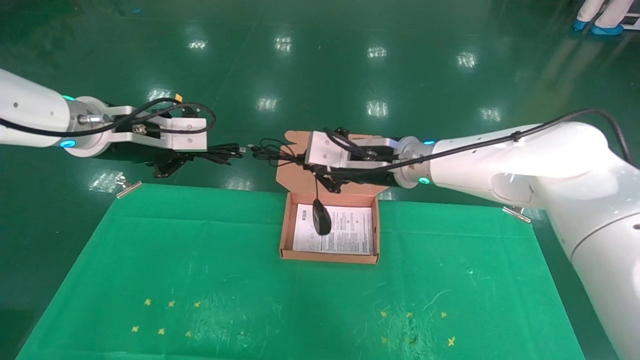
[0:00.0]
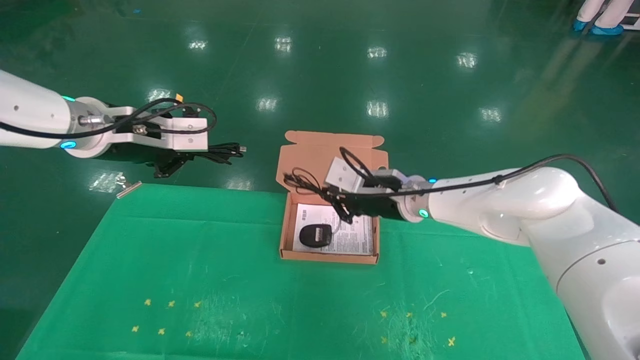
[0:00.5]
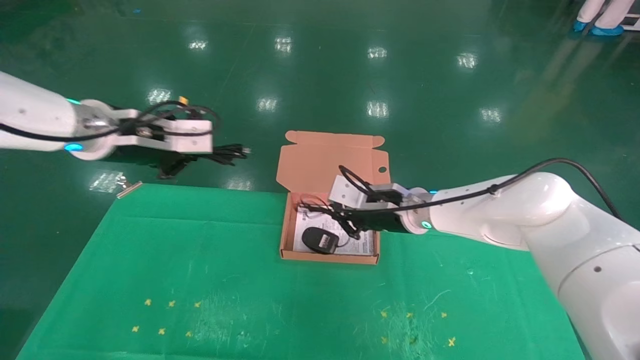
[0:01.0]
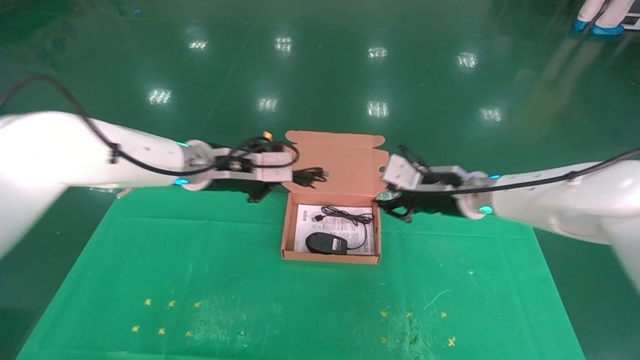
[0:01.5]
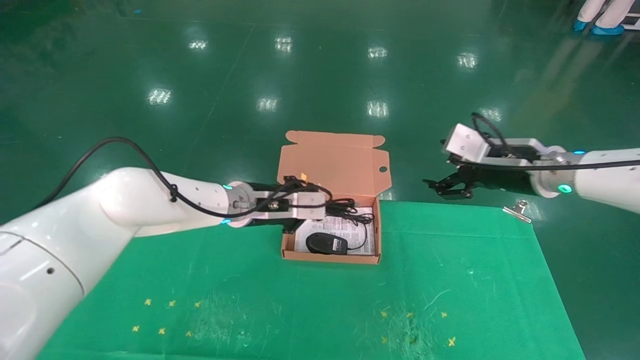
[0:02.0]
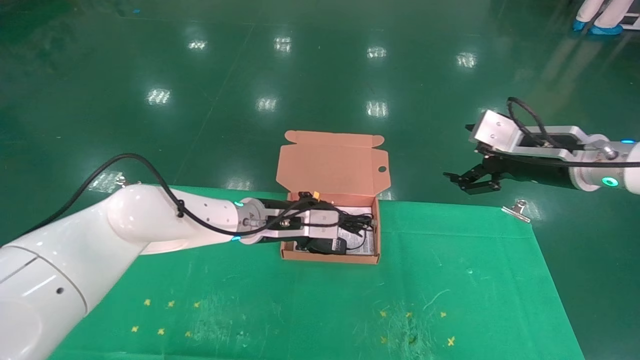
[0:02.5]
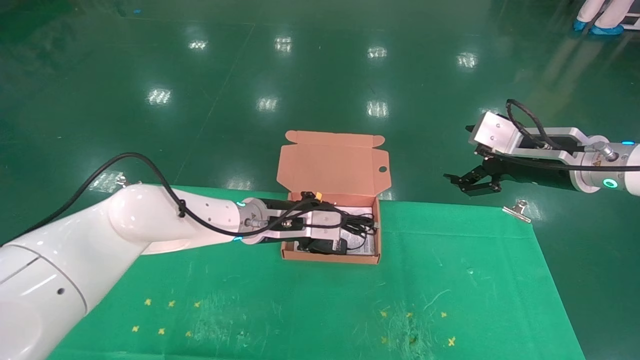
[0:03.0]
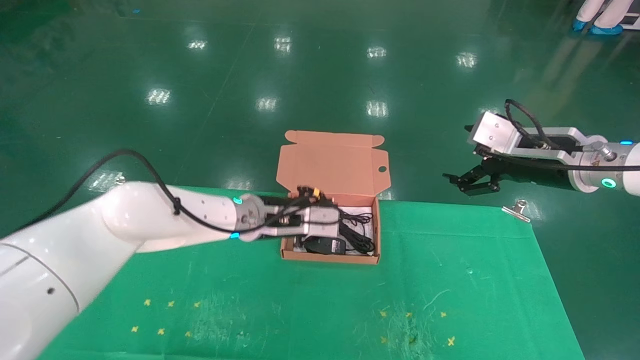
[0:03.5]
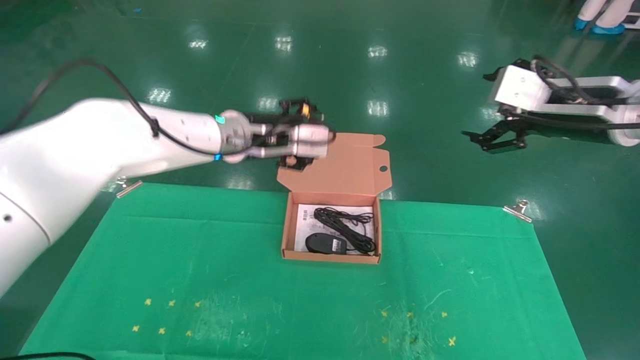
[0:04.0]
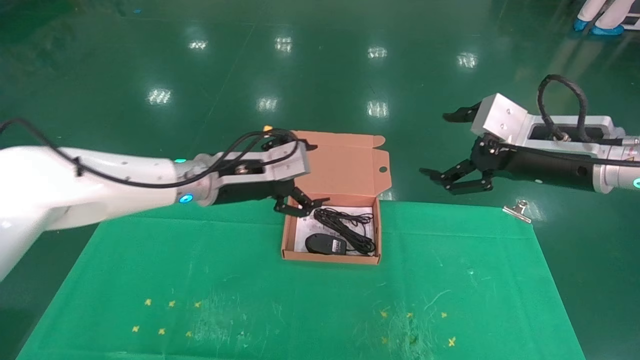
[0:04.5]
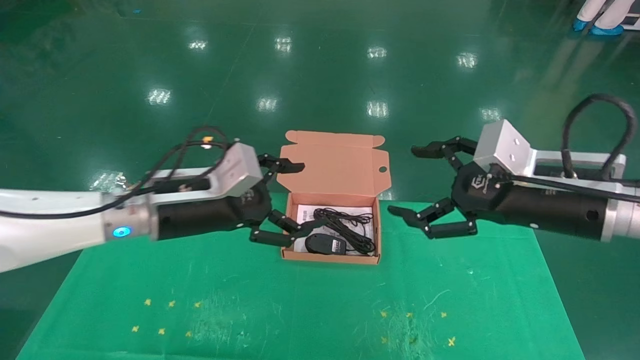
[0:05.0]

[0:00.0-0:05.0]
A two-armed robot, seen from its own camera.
Task of the whole recording: grasp data cable left put into box grasp mouse right put into box.
Step, 0:00.0 to 0:03.5: Place the mouse and power cord into the box.
0:00.0 to 0:02.5: The left gripper goes some 25 cm to the right, downward and forward; the right gripper moves to the right, roughly 20 cm, and opens up.
0:02.5 to 0:05.0: The left gripper travels backward, to the left and upward by some 15 cm, and opens up; the right gripper goes about 10 cm backward and to the left.
